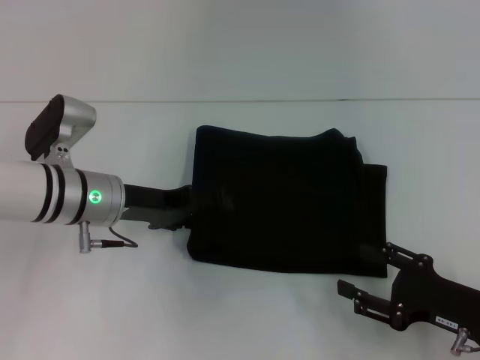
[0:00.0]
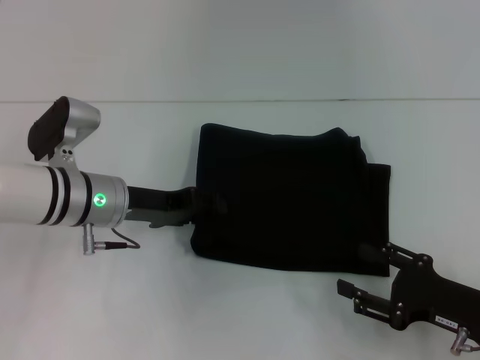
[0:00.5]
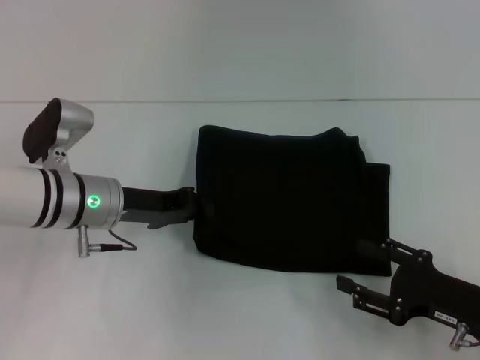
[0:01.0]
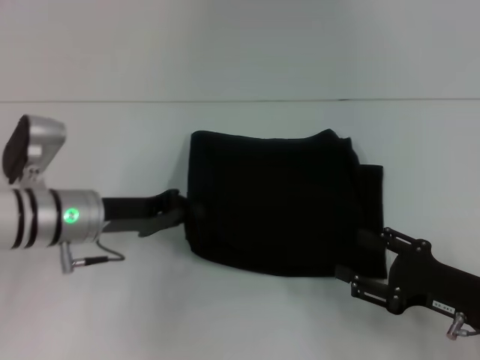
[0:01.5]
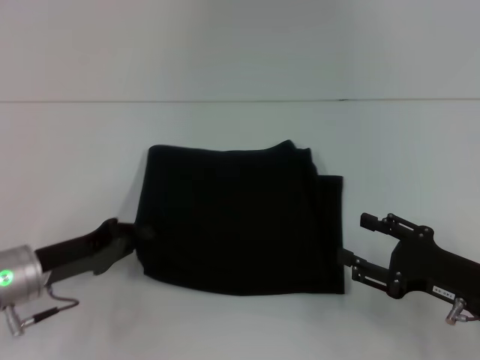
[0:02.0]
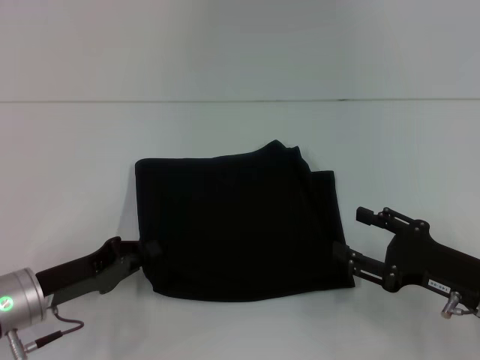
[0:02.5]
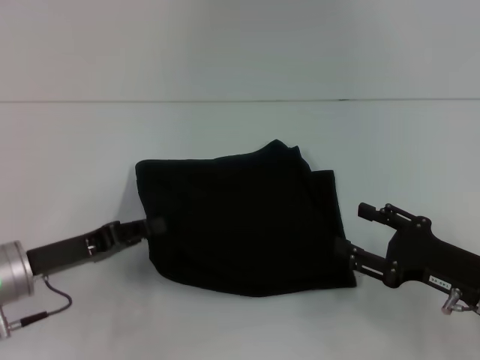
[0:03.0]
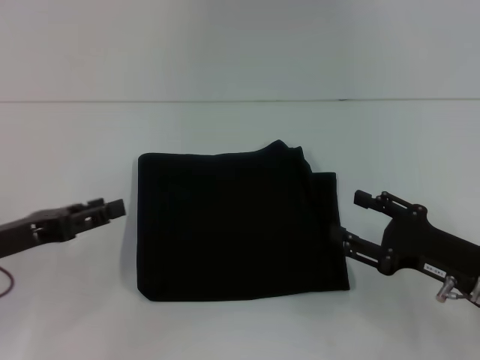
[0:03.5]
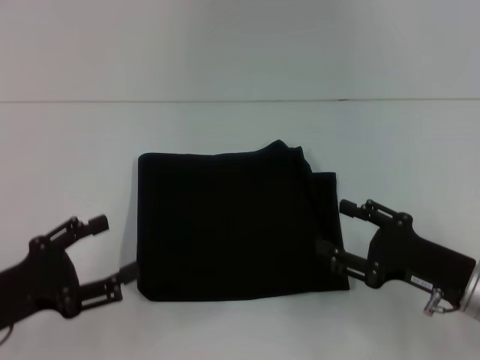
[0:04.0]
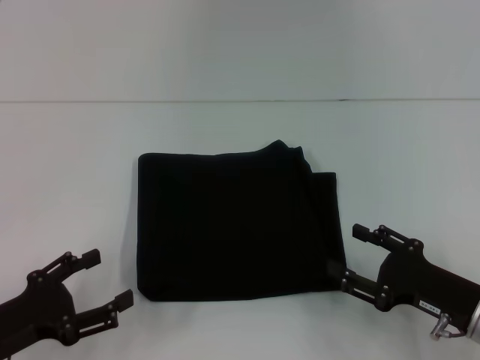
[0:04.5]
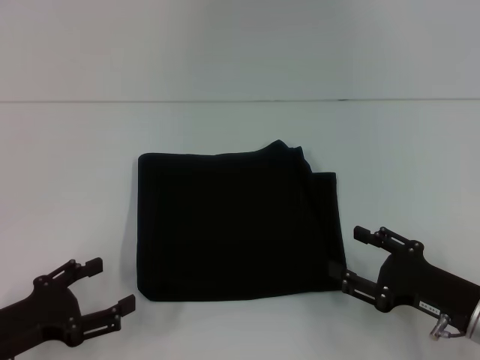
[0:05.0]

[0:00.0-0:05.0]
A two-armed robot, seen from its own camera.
0.0 to 2.5 s: The left gripper goes roughly 15 cm backward, to the left and downward, and closes up.
2.5 to 5.0 s: The left gripper travels backward by some 5 cm, and opens its fingers.

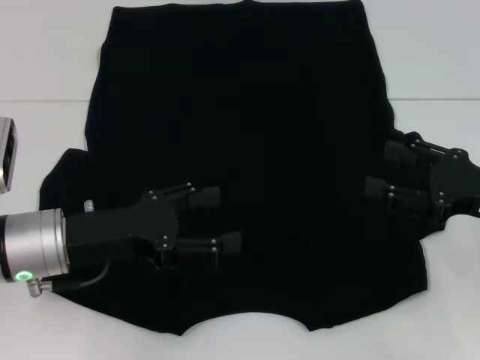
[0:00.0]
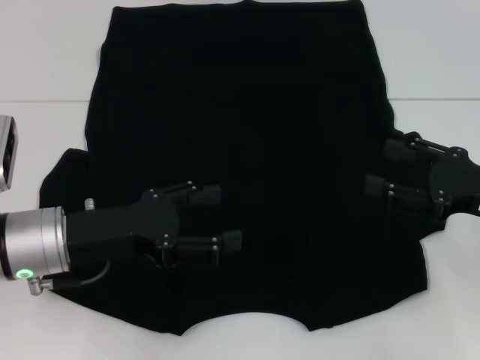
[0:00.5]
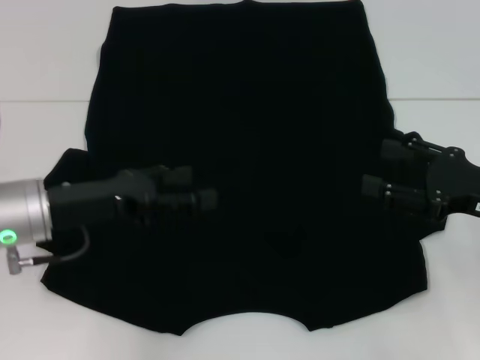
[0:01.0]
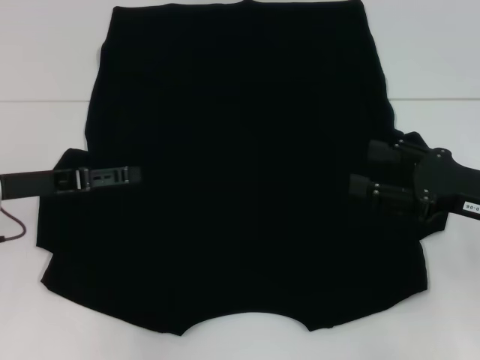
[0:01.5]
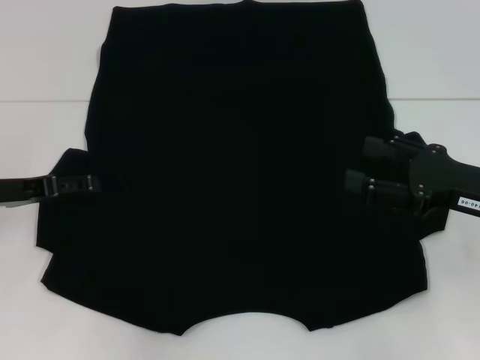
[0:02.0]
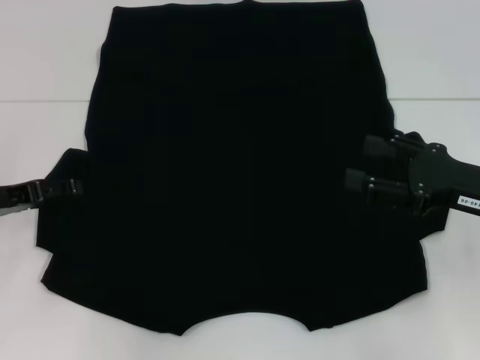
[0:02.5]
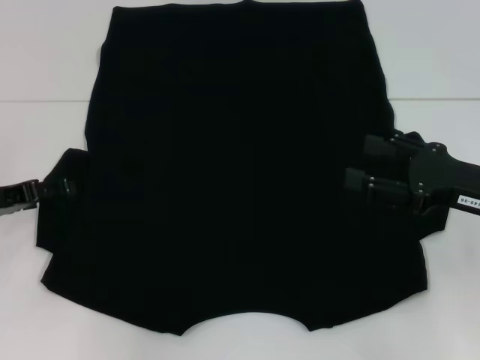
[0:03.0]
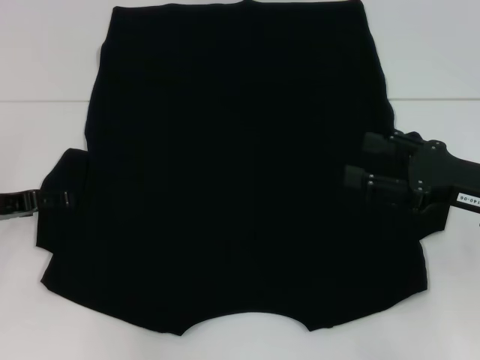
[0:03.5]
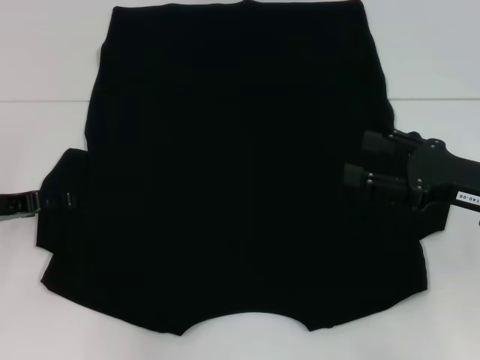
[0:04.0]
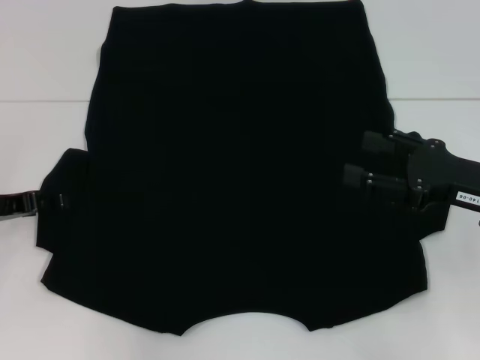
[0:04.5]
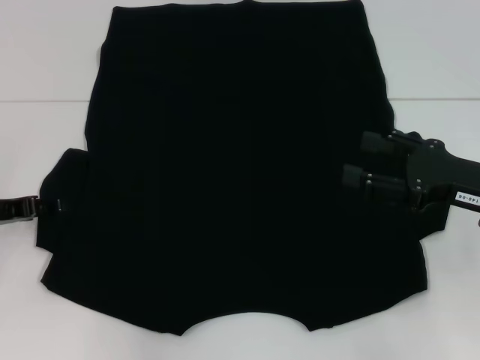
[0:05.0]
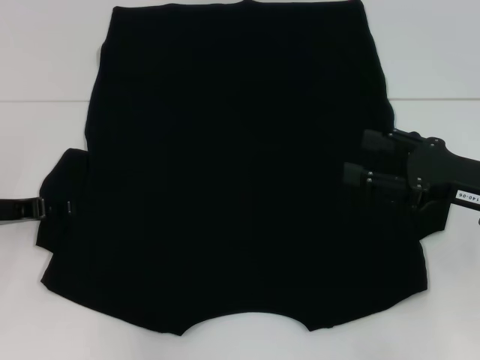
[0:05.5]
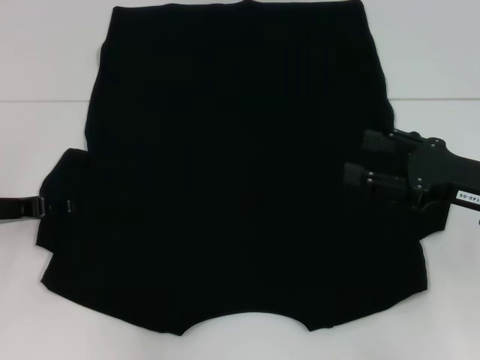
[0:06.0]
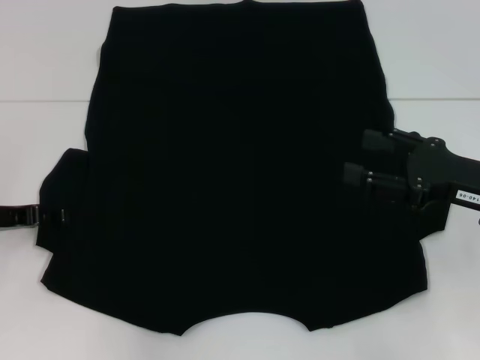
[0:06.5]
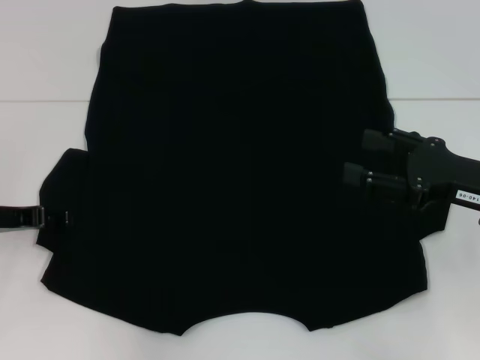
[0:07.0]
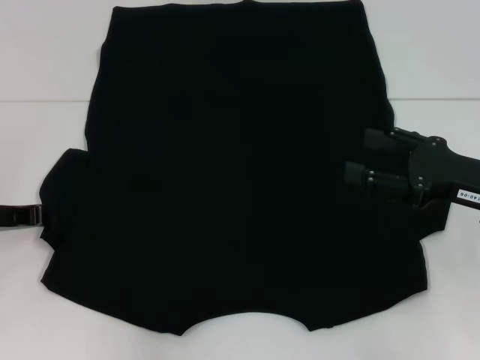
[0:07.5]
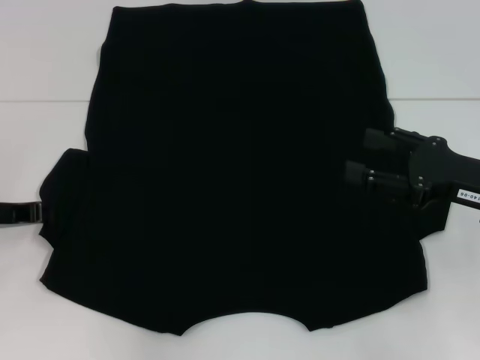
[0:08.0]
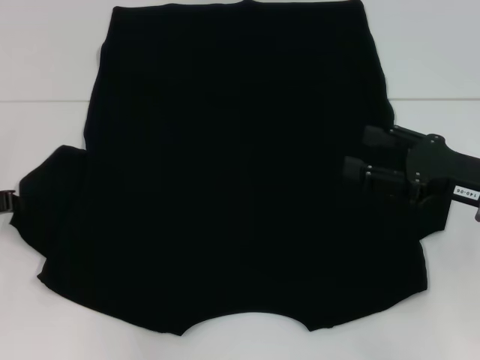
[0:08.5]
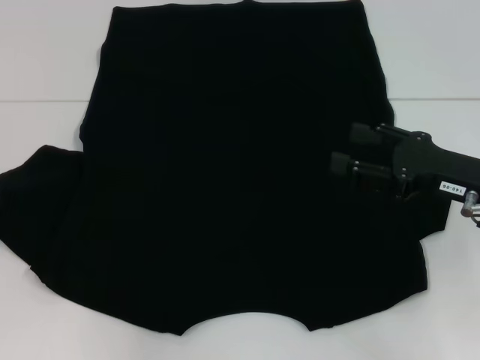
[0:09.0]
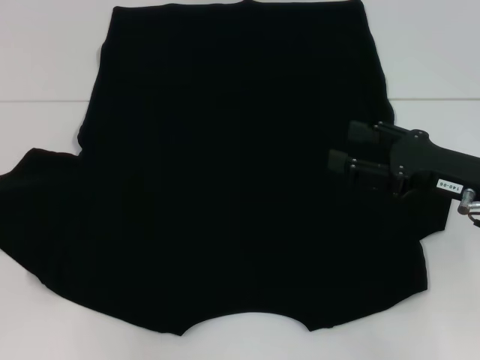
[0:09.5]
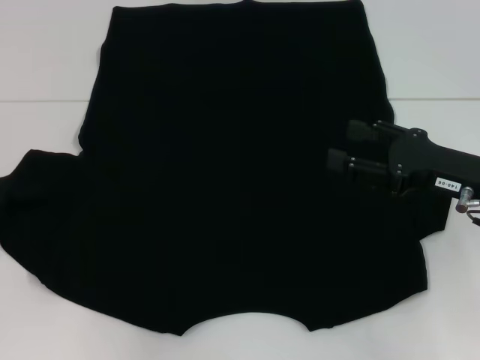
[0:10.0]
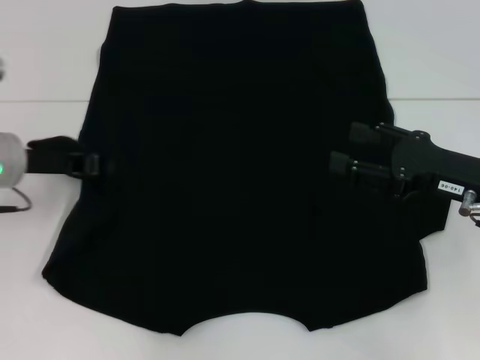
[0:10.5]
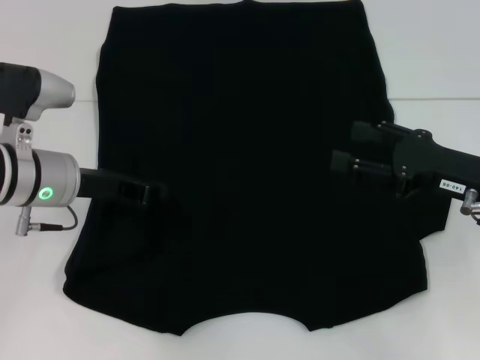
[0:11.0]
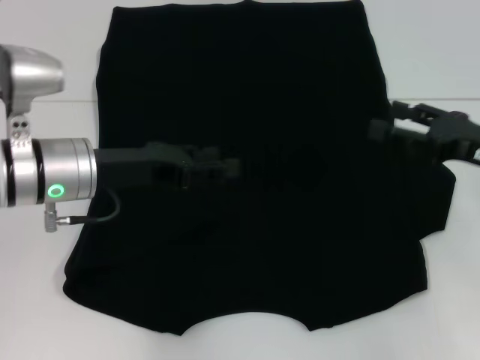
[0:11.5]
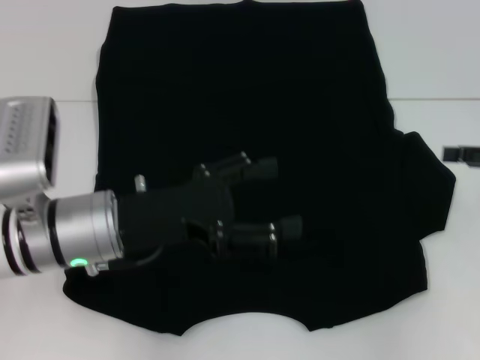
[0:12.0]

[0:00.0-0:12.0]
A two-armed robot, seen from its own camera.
Step, 0.0 to 11.0 s: Fold the bottom left sleeve with your left hand.
0.0 to 2.0 s: The left gripper shifts about 10 cm to the left.
2.0 to 4.0 s: The grippers make only small movements.
4.0 to 6.0 s: Both grippers stay about where they are.
8.0 to 10.0 s: The grippers move only a little.
10.0 to 12.0 s: The right gripper heads to the right, covering roughly 10 cm. Meanwhile the left gripper travels to the right by some 20 cm, and opens its fingers.

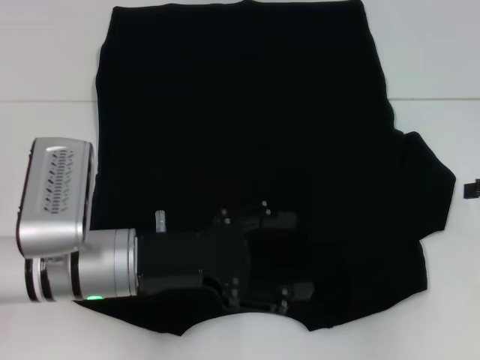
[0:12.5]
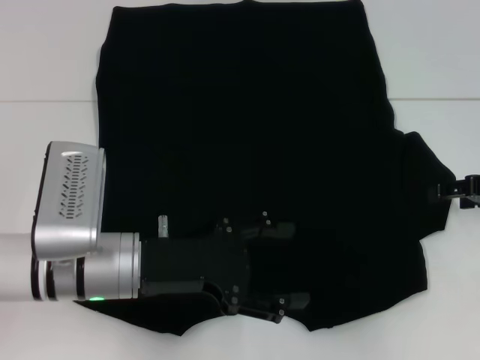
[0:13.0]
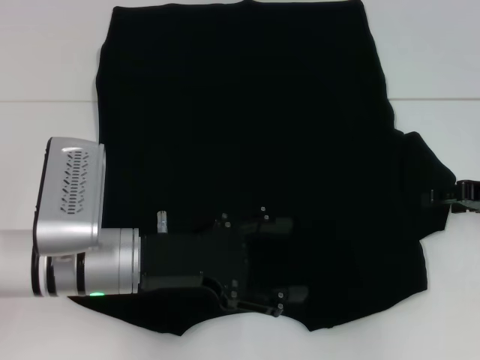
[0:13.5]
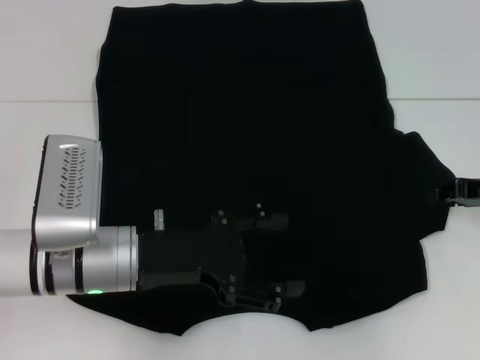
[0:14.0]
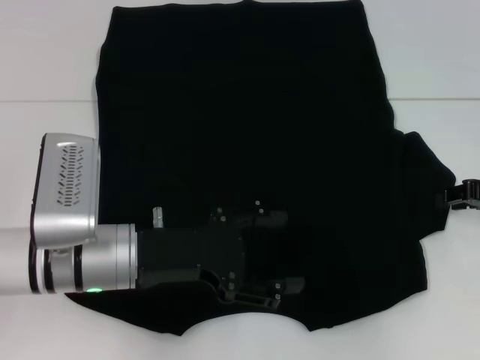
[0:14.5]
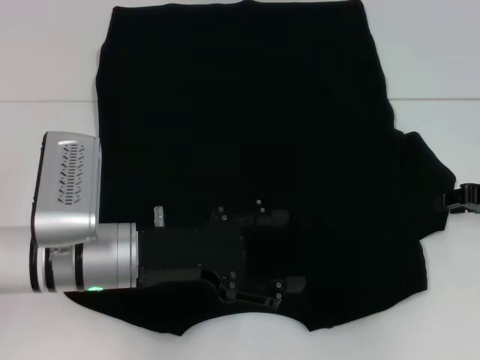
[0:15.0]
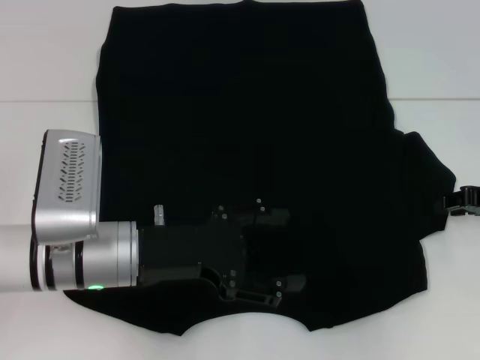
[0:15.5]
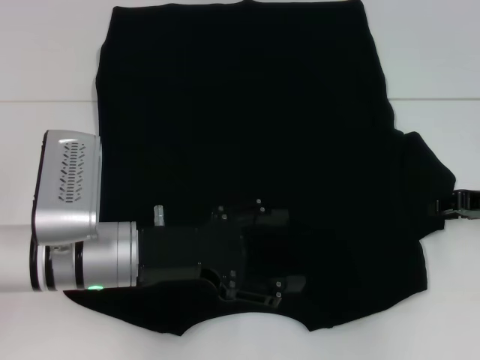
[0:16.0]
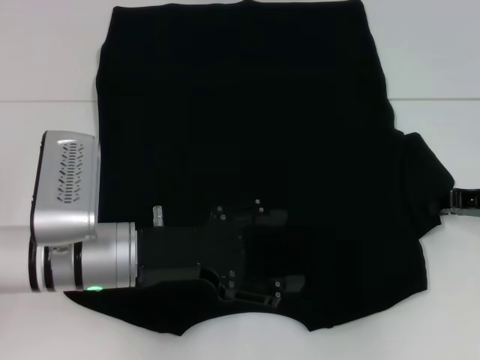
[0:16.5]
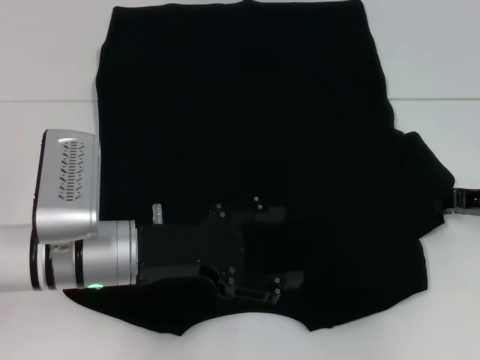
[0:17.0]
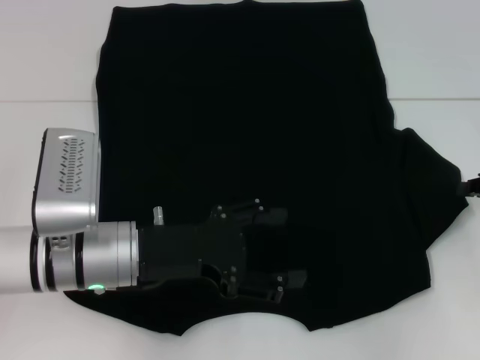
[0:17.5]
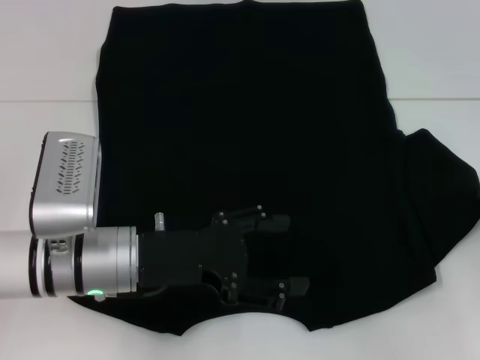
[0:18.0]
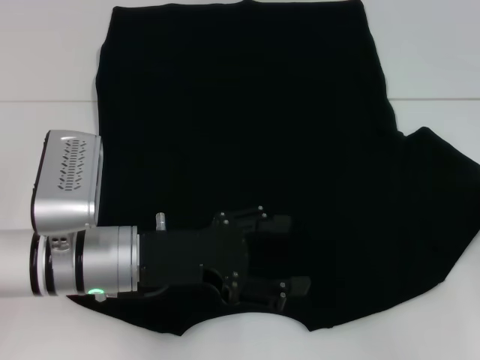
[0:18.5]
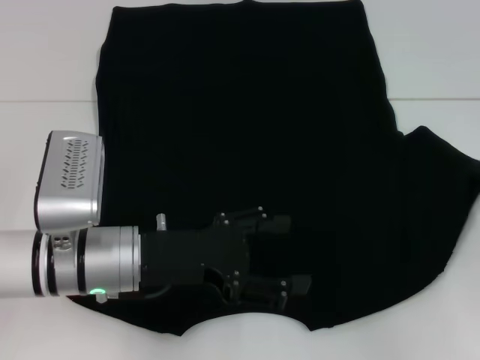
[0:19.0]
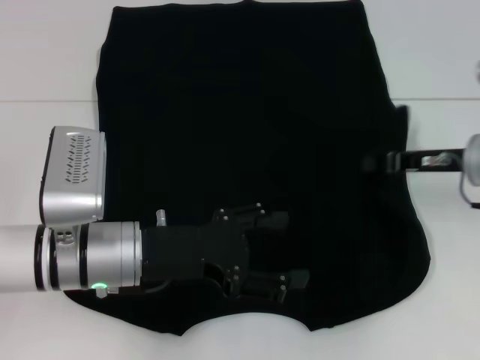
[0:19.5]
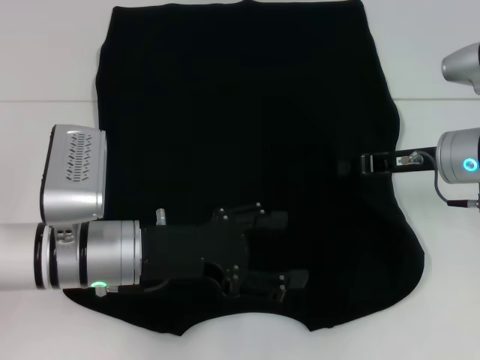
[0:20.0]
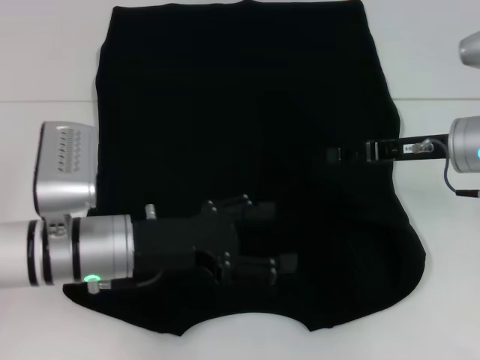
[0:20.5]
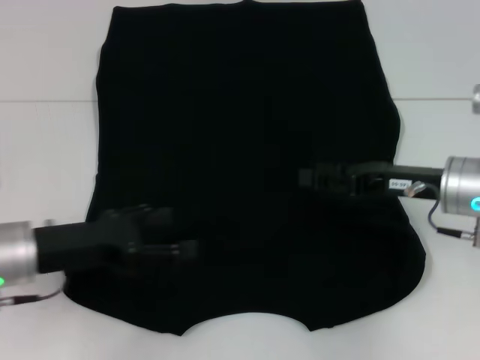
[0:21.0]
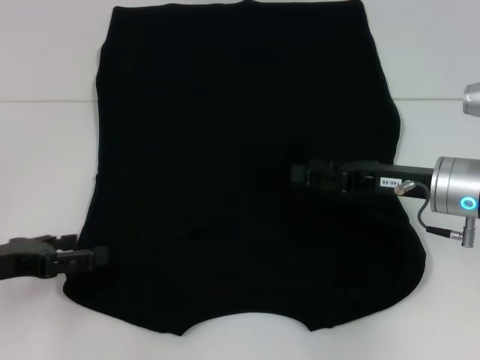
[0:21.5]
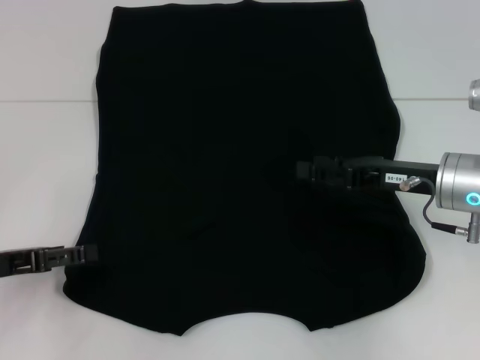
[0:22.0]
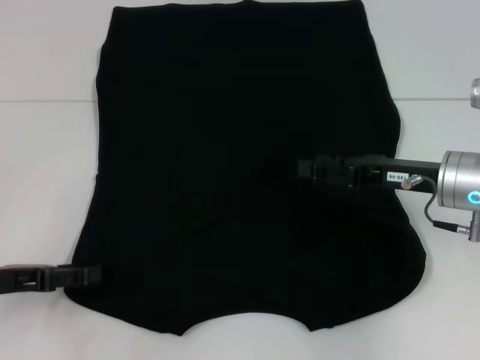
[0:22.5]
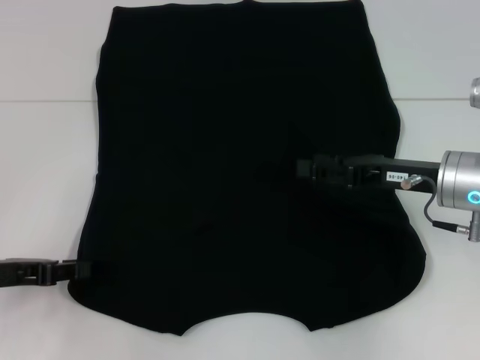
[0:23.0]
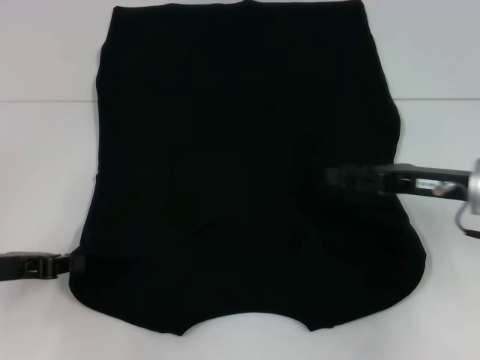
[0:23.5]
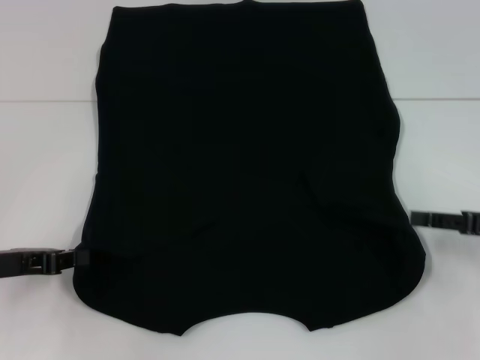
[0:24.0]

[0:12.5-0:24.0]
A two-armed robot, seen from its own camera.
Step, 12.5 to 20.0 s: Fold the bottom right sleeve with your right hand.
Step, 20.5 to 23.5 s: Grab the bottom left corner with your left hand.
12.5 to 14.5 s: The right gripper moves about 5 cm, and closes.
14.5 to 16.5 s: The grippers make only small movements.
16.5 to 18.5 s: The right gripper shifts approximately 5 cm to the right.
18.5 to 20.0 s: The right gripper moves to the left, roughly 15 cm.
20.0 to 22.0 s: The left gripper moves to the left, about 15 cm. The right gripper opens up.
22.0 to 24.0 s: The left gripper closes up; the right gripper is displaced to the right by about 10 cm.
